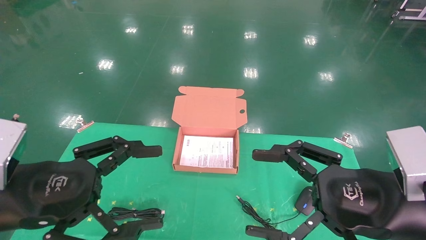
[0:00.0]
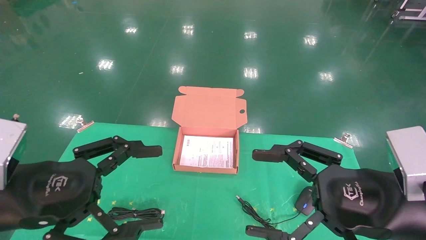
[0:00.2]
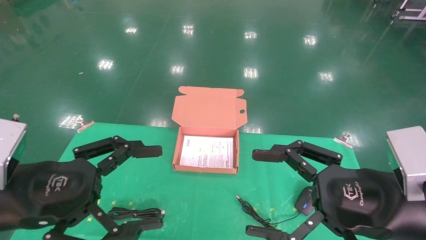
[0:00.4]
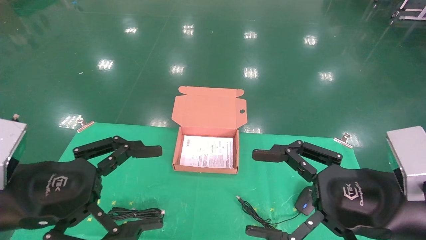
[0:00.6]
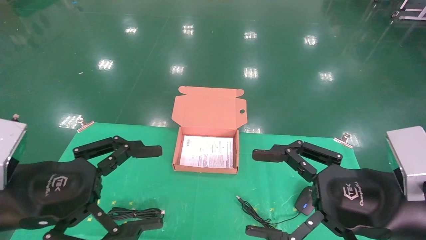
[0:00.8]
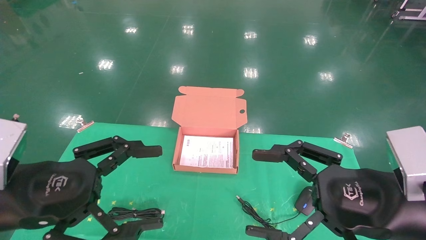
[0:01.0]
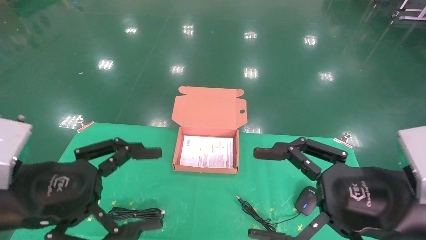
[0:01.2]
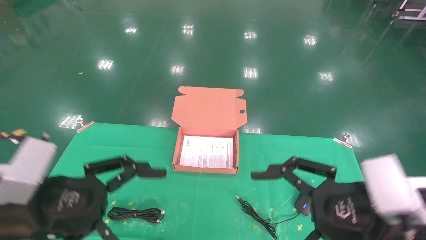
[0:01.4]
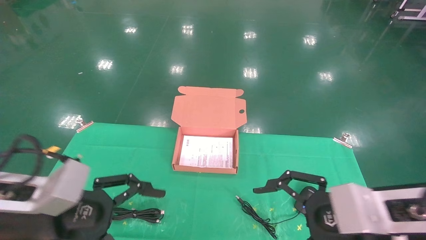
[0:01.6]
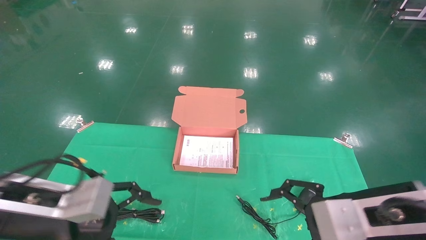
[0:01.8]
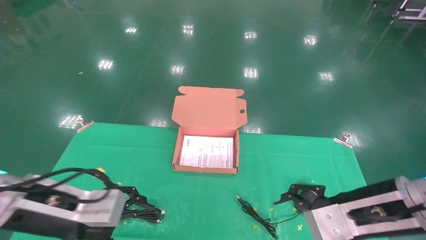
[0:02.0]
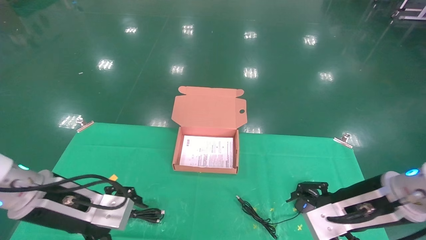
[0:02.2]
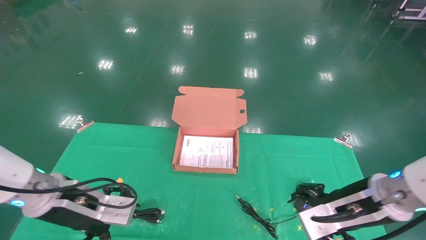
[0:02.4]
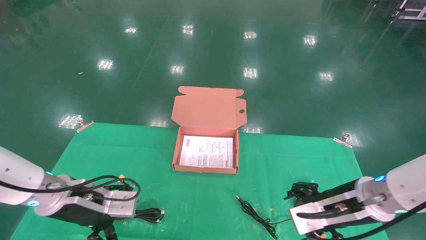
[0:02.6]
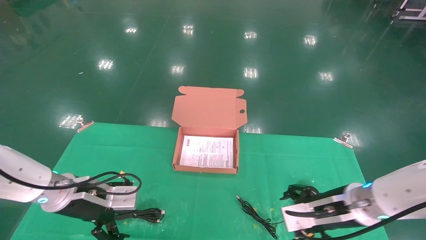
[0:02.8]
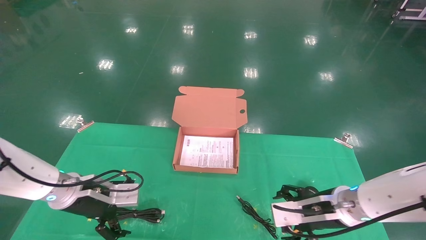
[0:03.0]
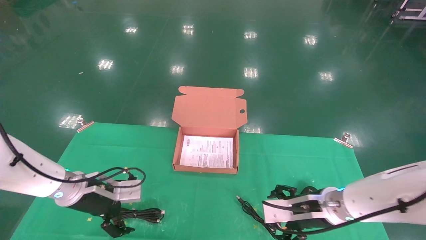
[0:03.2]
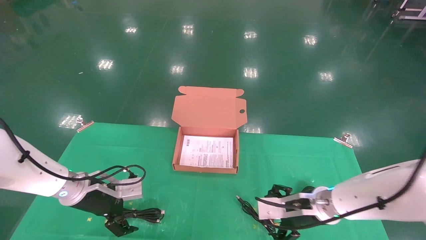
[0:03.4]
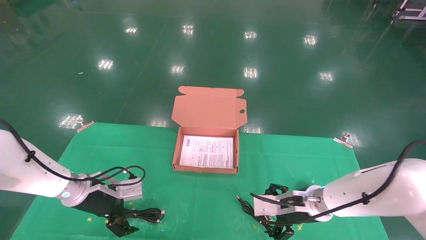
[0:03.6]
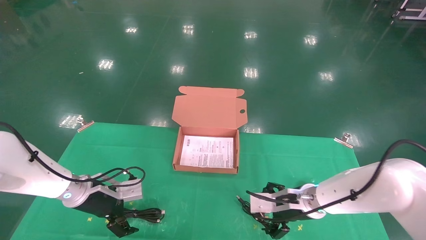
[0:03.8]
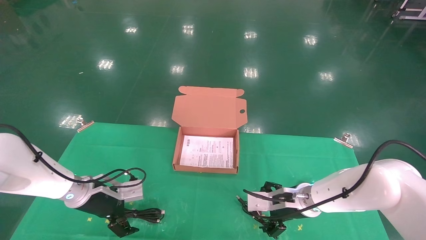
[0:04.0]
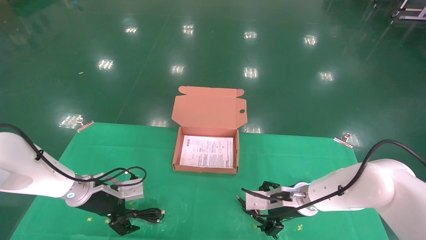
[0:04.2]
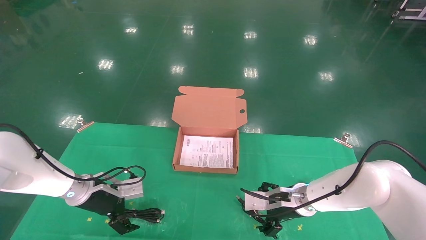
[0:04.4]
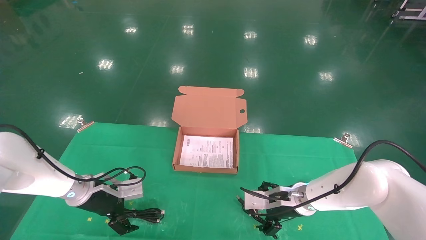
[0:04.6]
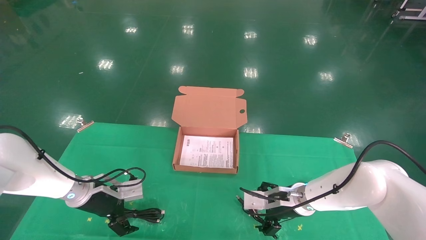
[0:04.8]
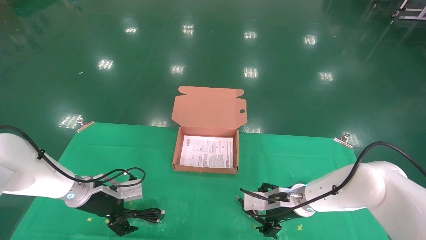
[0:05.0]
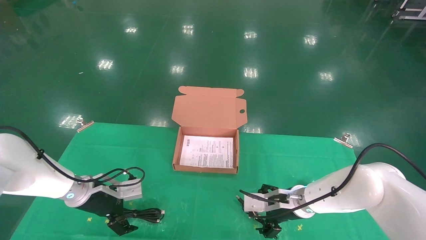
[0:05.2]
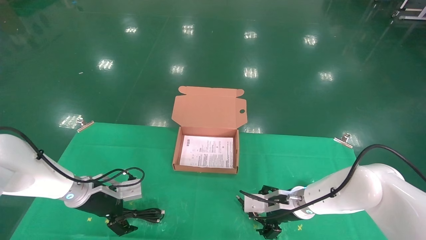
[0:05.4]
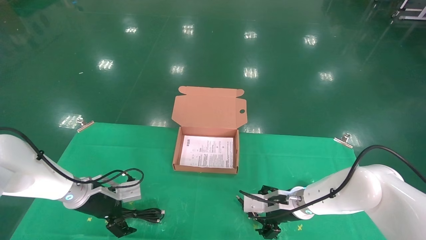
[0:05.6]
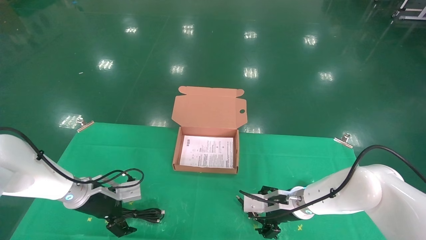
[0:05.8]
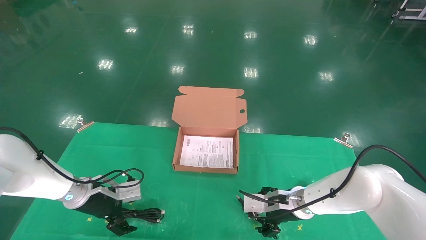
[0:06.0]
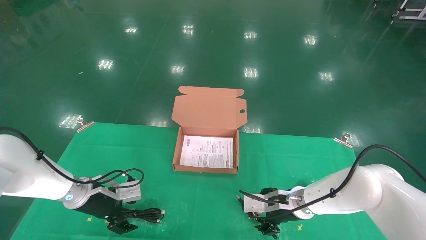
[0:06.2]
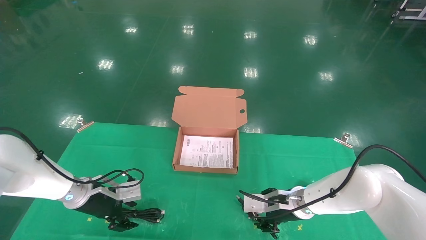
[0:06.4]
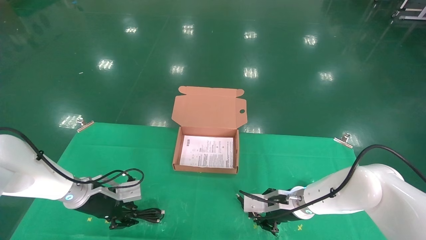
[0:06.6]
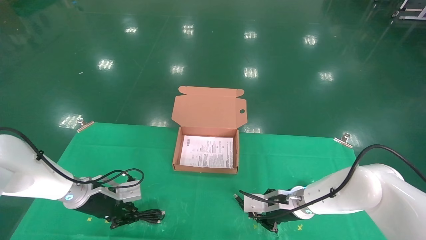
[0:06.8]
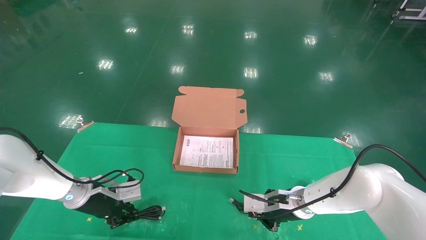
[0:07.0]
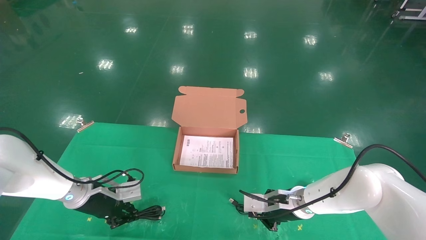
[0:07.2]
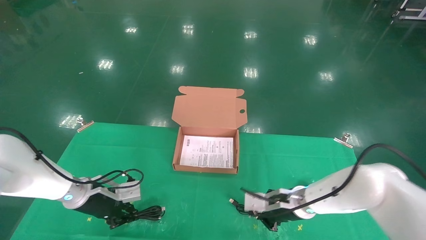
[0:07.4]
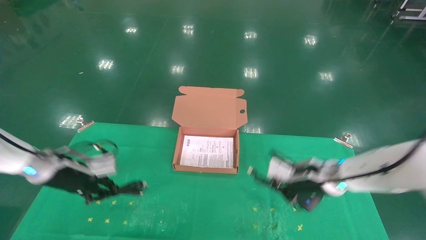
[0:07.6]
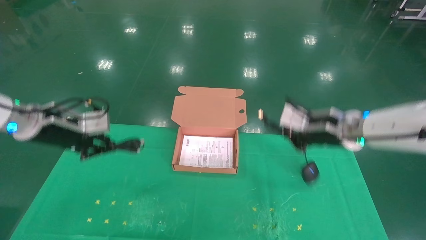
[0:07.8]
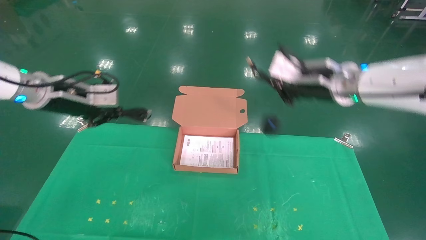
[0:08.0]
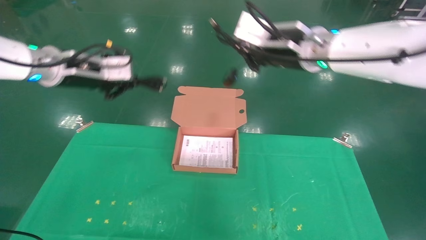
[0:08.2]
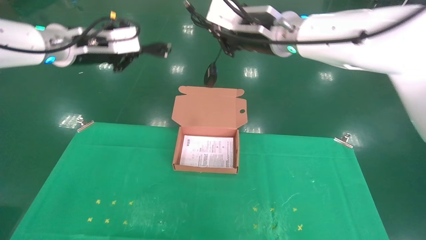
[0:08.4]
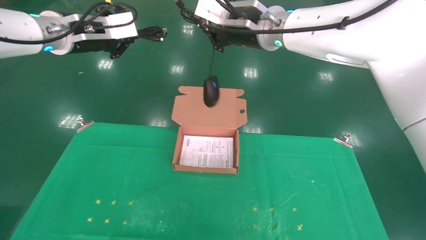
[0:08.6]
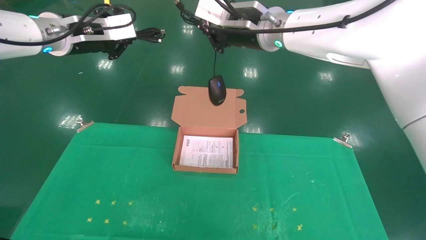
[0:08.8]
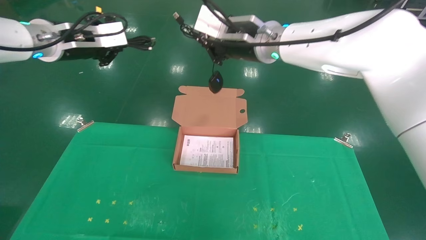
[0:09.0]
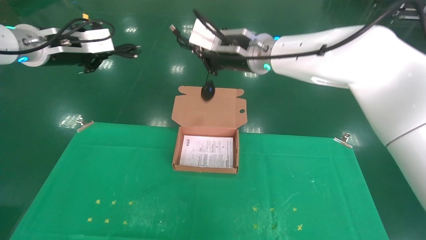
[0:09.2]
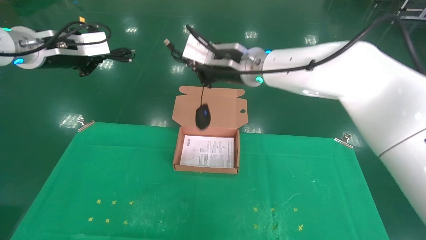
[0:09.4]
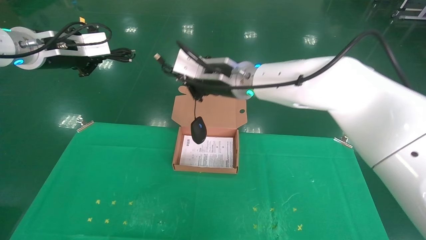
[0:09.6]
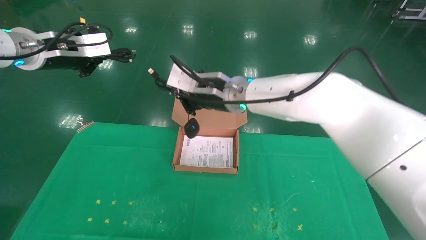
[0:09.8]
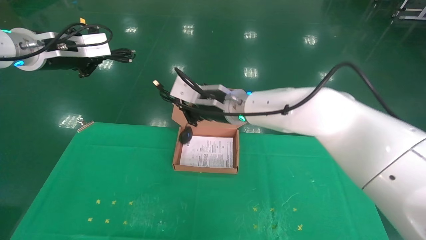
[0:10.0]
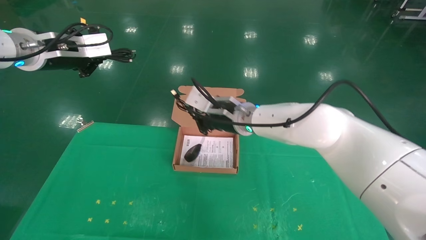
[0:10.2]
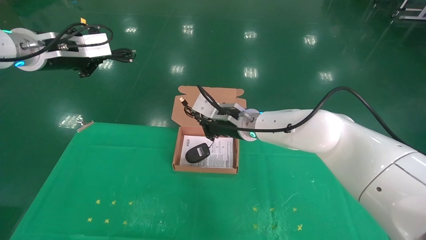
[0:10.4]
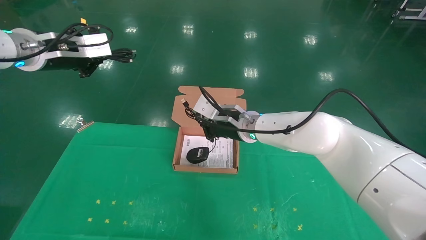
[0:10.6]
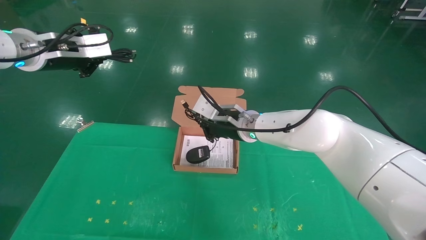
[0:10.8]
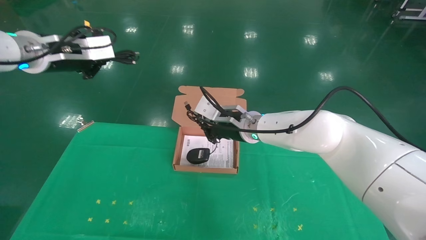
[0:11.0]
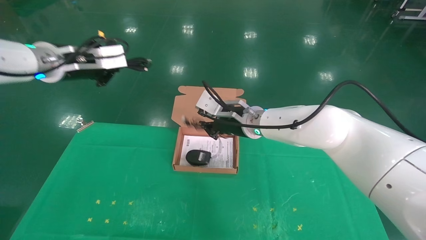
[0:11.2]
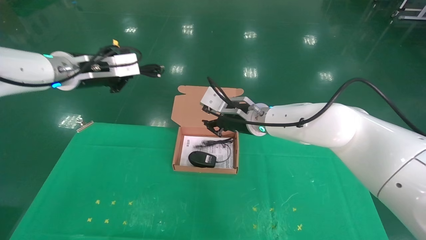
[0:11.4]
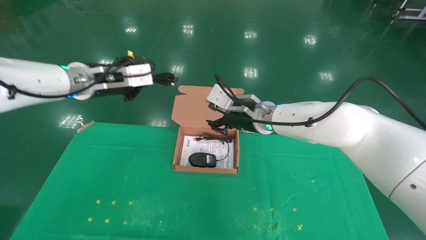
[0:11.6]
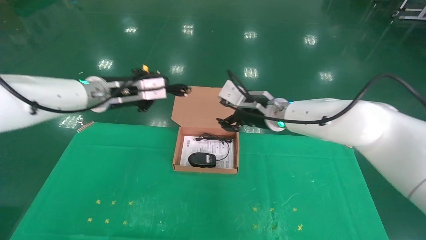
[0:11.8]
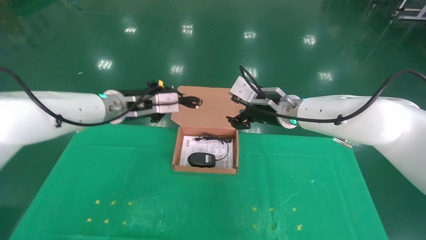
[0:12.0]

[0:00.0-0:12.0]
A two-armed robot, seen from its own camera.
Task of the whole recording: grasp data cable left put into box grasp mouse right put into box.
Step, 0:01.6 to 0:06.6: Grab and pick up both the mouse and power cord from the accessory packaging area at the same time.
0:01.6 to 0:03.0: The grippers both shift forward and downward by some 15 cm.
0:03.0 to 0:04.4: The two grippers go some 5 cm forward.
0:04.4 to 0:06.0: The grippers stay close to where they were, moving slightly.
0:06.0 to 0:07.6: Both grippers travel together upward, about 10 cm. The left gripper closes up. Meanwhile the right gripper closes up.
0:07.6 to 0:09.0: The left gripper is displaced upward by approximately 25 cm. The right gripper is displaced upward and to the left by approximately 30 cm.
0:09.0 to 0:10.4: The right gripper is displaced downward by some 15 cm.
0:10.4 to 0:12.0: The left gripper travels to the right and downward by about 20 cm. Meanwhile the right gripper goes roughly 10 cm to the right, and opens up.

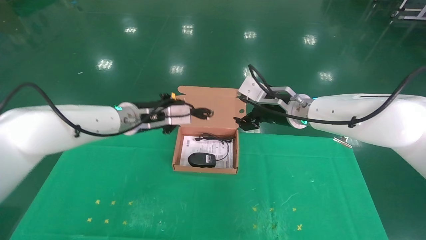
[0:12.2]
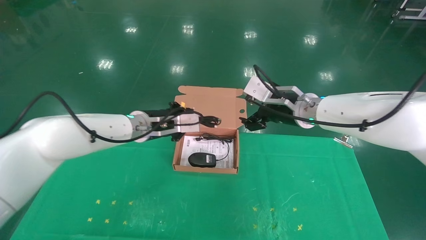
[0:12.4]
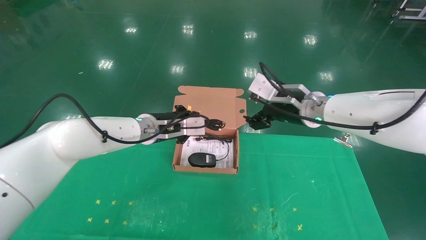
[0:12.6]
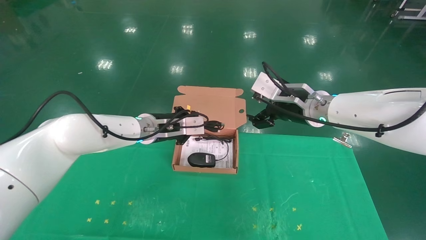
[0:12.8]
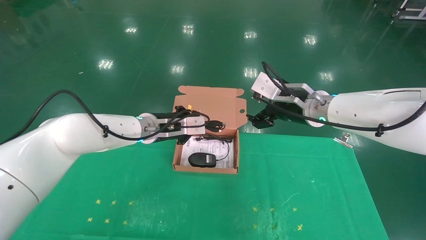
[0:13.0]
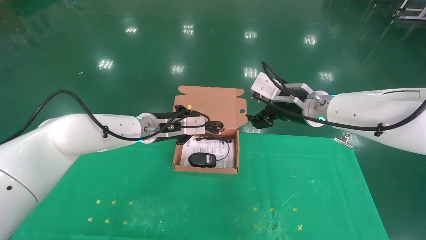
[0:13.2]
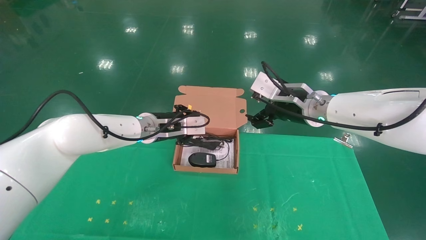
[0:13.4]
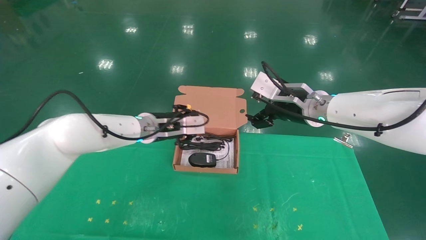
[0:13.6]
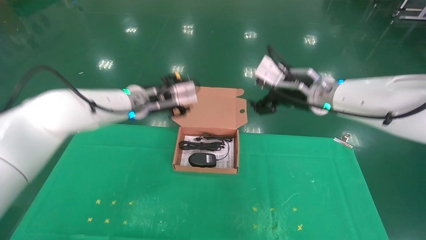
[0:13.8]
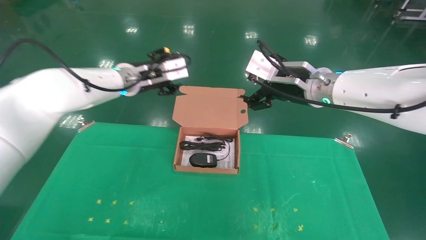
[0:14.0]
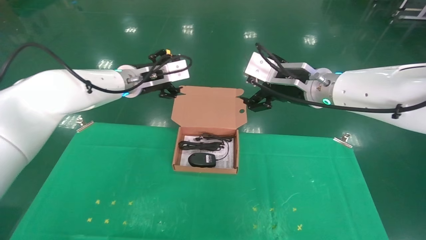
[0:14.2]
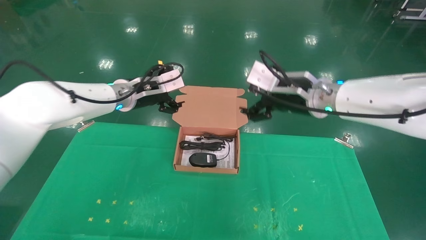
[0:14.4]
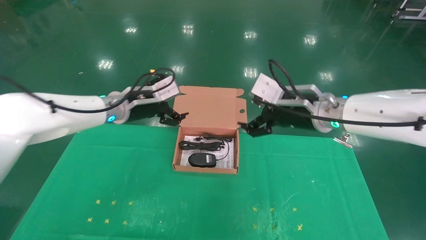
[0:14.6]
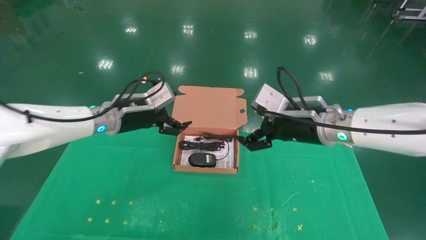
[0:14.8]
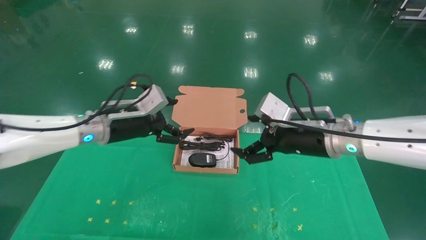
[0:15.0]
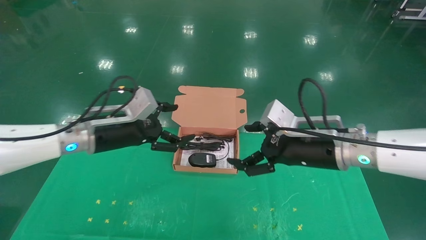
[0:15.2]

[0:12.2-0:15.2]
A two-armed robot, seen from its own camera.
Task of the whole recording: grasp data cable left put into box grasp mouse right put into box.
0:12.2 to 0:13.8: The left gripper opens its fingers; the right gripper moves approximately 5 cm.
0:13.8 to 0:15.2: The left gripper shifts roughly 15 cm backward, to the left and downward, and opens its fingers. The right gripper moves downward and backward, some 10 cm.
